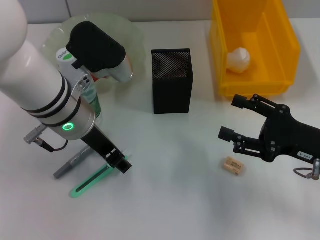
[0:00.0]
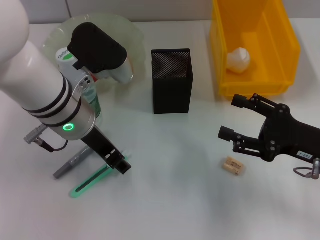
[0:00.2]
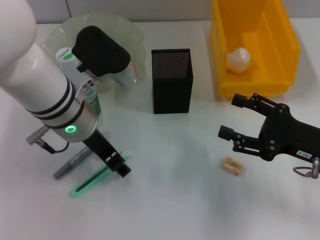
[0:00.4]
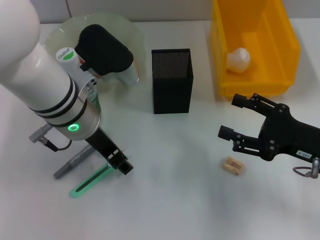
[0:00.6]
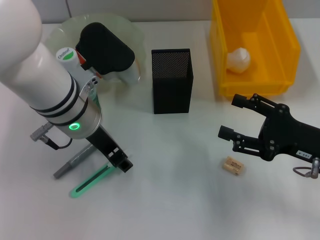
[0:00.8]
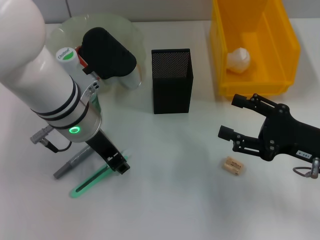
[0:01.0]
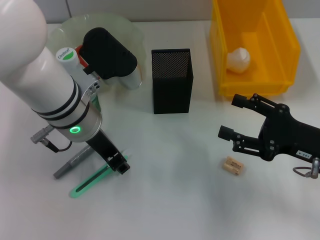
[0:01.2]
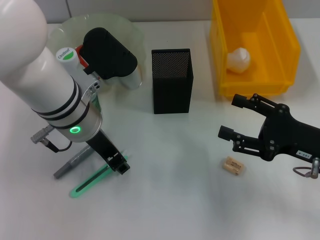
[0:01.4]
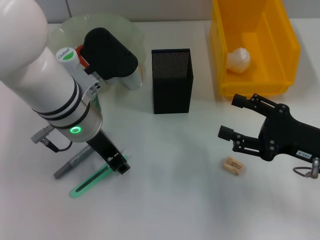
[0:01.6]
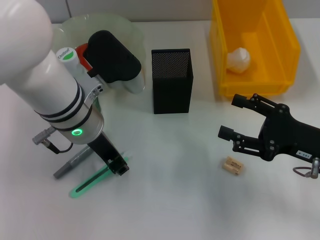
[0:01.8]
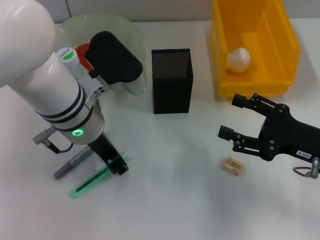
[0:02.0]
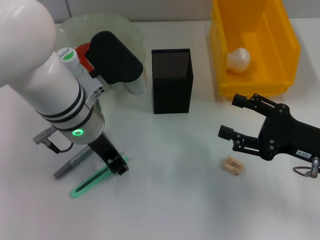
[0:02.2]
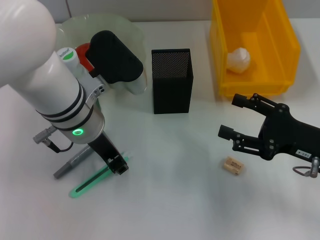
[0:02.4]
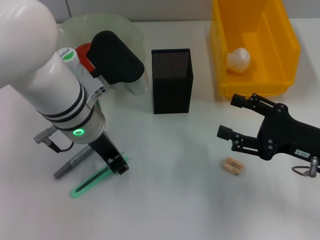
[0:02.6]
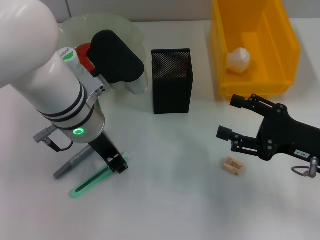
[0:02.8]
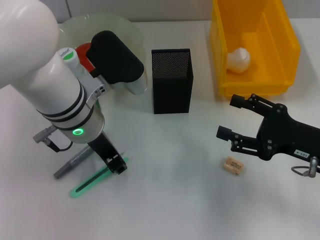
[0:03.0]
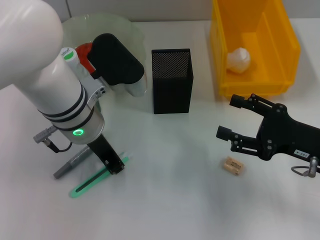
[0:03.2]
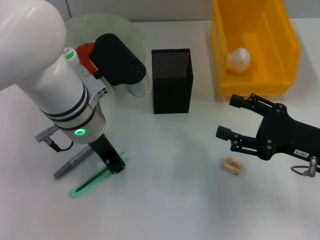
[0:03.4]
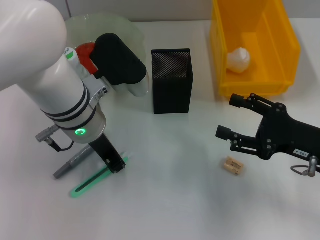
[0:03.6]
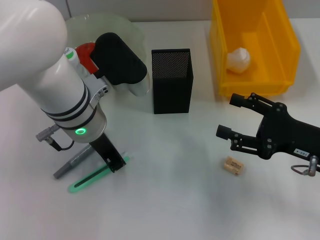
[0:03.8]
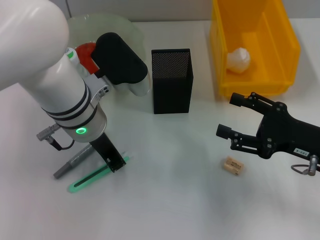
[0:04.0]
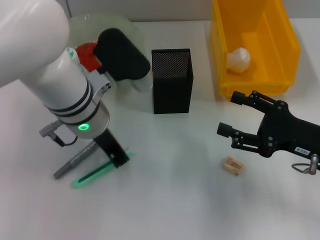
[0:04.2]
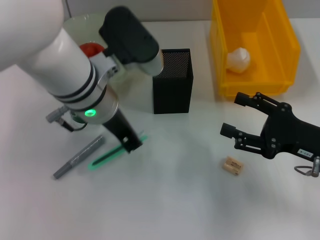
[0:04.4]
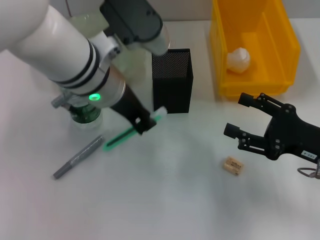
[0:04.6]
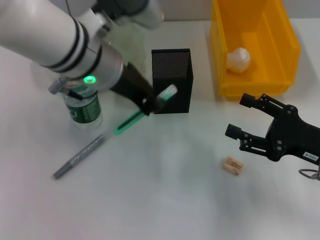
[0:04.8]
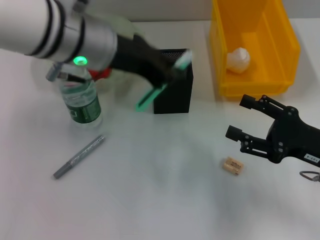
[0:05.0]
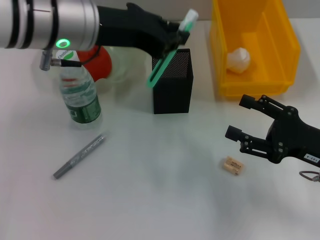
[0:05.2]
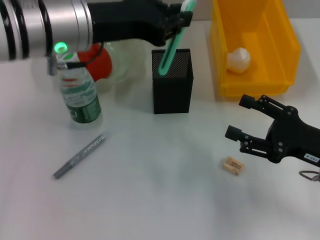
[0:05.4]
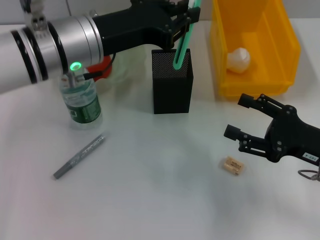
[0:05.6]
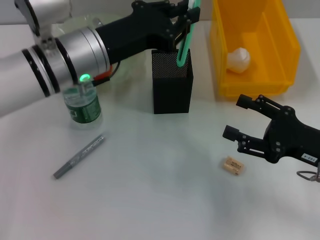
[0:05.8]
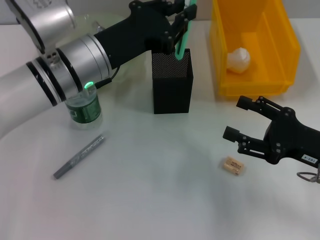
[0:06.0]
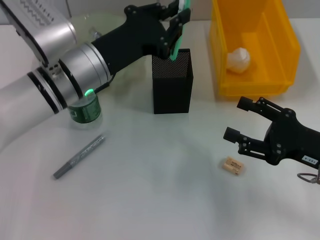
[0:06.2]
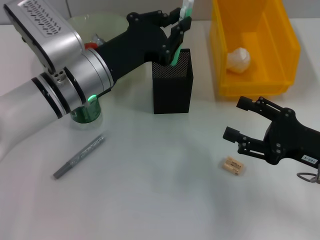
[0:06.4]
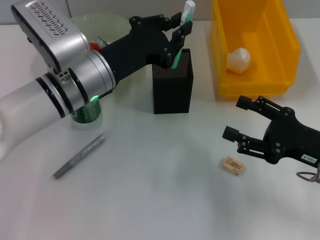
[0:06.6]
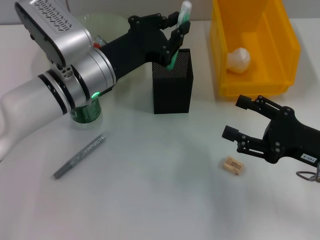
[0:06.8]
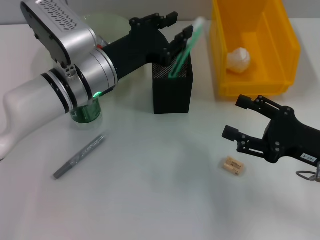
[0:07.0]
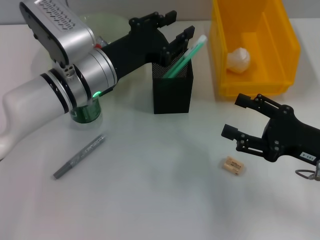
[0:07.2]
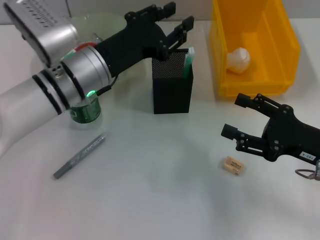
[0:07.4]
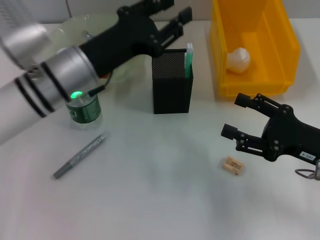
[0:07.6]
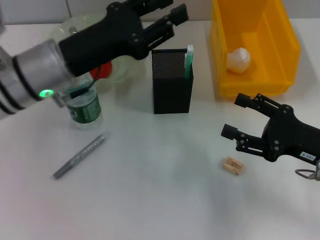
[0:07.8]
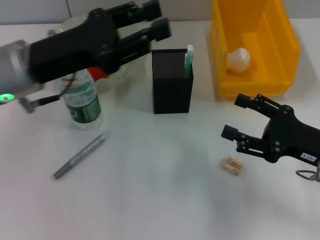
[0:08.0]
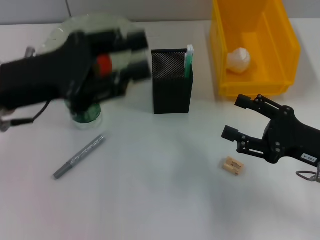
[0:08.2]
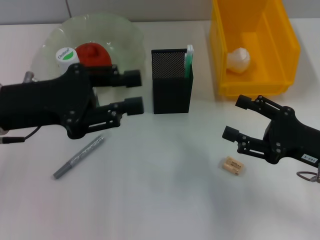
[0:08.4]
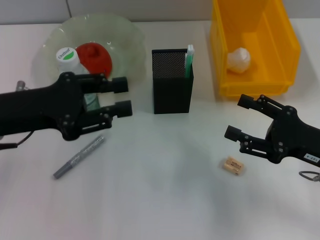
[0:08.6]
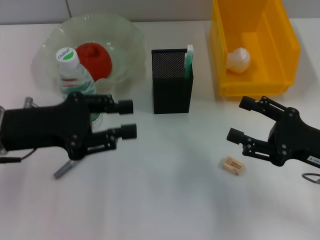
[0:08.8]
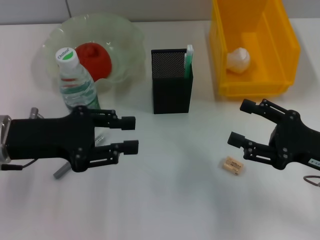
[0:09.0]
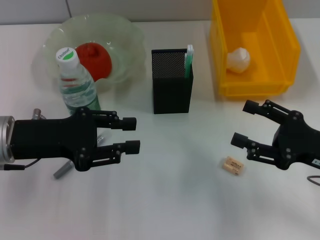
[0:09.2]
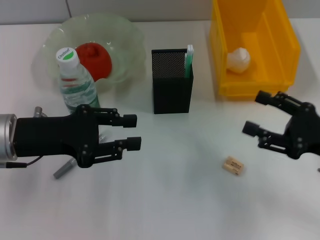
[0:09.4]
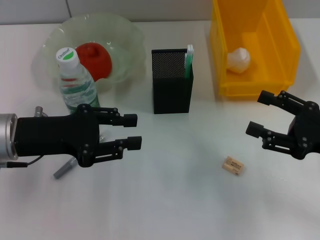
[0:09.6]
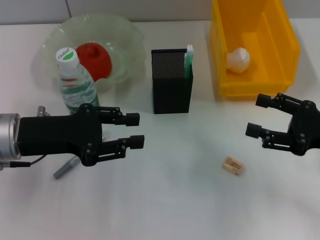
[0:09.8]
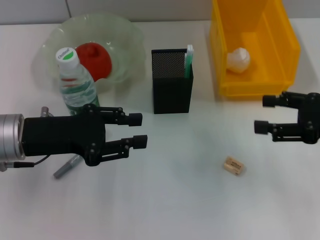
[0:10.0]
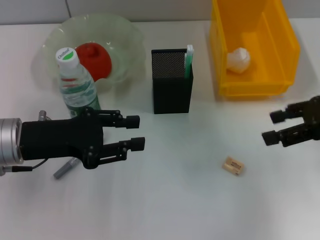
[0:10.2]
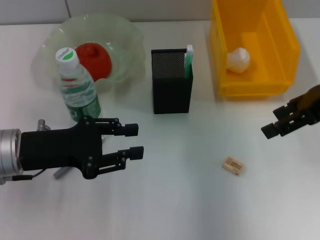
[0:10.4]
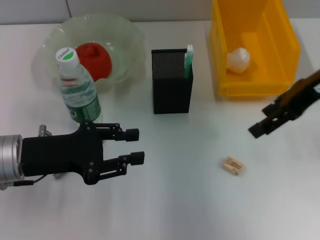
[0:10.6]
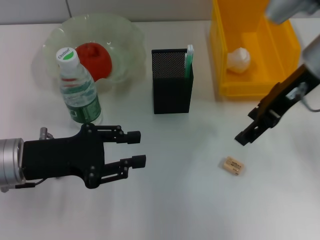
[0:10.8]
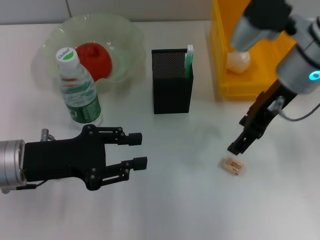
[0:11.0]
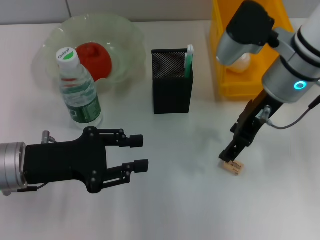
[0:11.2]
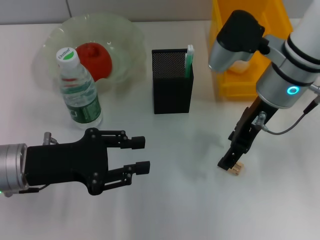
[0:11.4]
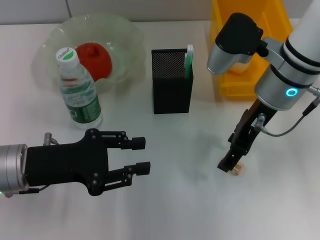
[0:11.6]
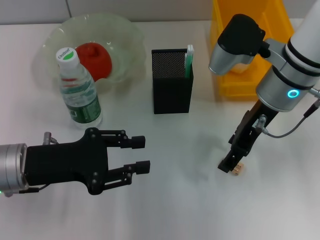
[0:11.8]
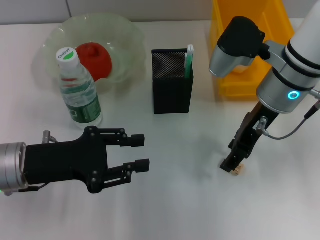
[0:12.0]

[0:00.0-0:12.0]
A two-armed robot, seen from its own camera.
Step, 0:00.0 to 0:04.0: Grab the blue utility knife with the left hand.
Step, 0:04.2 to 0:07.2: Place the blue utility knife into the pen holder with the left hand.
0:00.0 to 0:01.6: Neither gripper changes place.
0:01.6 to 0:03.0: Both grippers stay put.
0:04.4 to 0:06.0: The left gripper goes upward and returns, roughly 5 cm each way.
0:06.0 to 0:07.6: The left gripper opens its fingers.
0:07.6 to 0:09.0: The left gripper travels to the left and backward by some 10 cm.
0:09.0 to 0:10.4: The right gripper moves upward and forward, approximately 20 cm.
0:10.4 to 0:12.0: The right gripper goes roughly 15 cm to the left and downward.

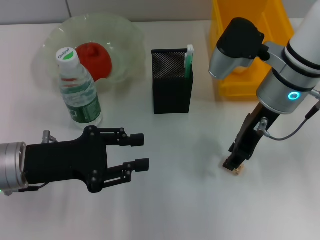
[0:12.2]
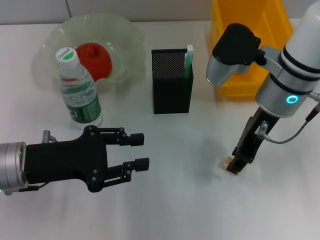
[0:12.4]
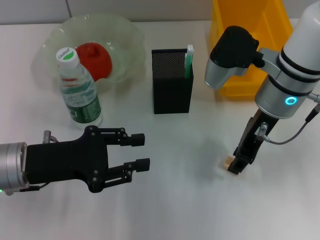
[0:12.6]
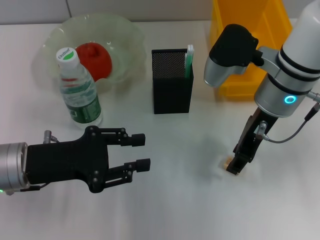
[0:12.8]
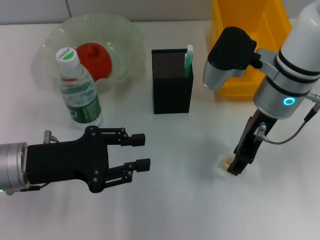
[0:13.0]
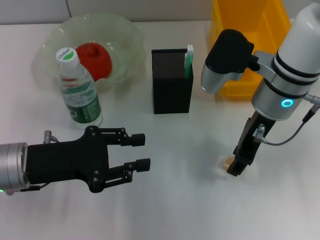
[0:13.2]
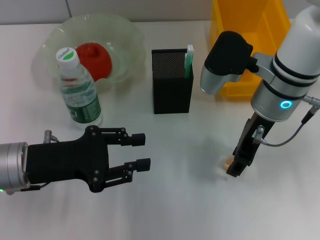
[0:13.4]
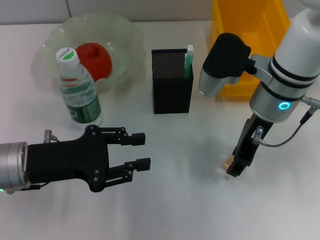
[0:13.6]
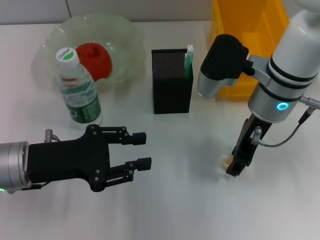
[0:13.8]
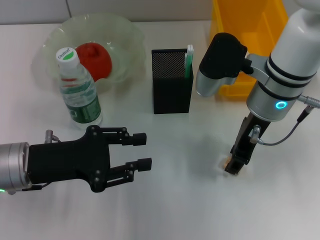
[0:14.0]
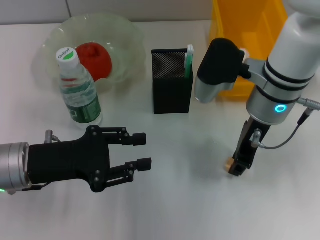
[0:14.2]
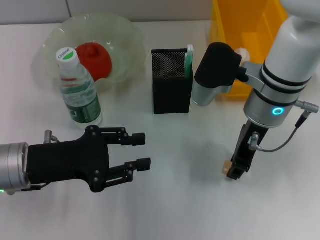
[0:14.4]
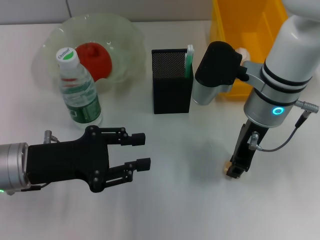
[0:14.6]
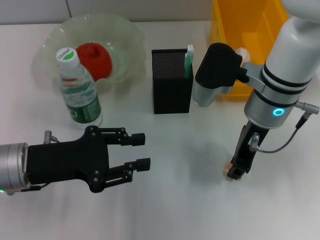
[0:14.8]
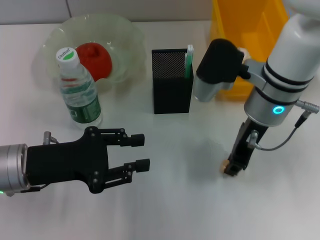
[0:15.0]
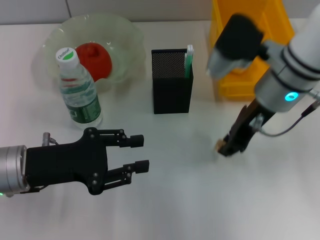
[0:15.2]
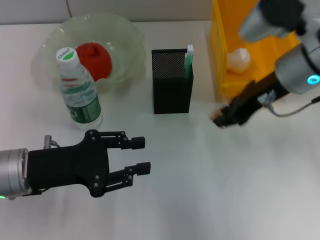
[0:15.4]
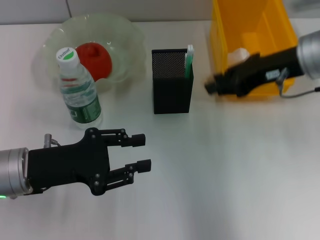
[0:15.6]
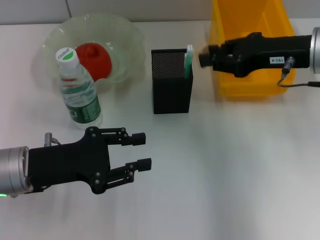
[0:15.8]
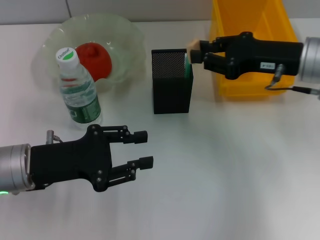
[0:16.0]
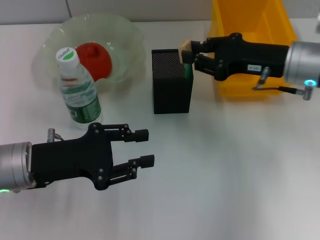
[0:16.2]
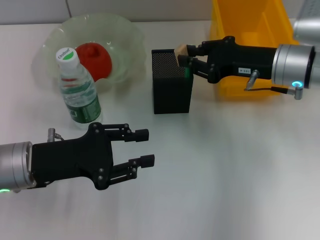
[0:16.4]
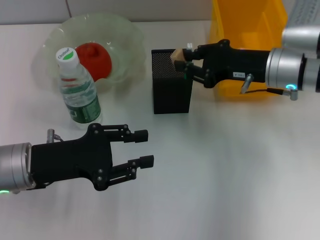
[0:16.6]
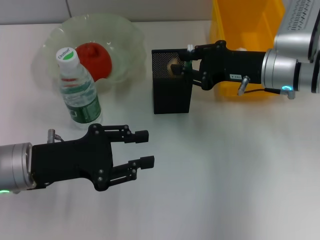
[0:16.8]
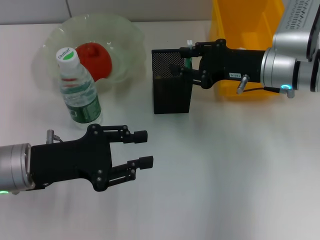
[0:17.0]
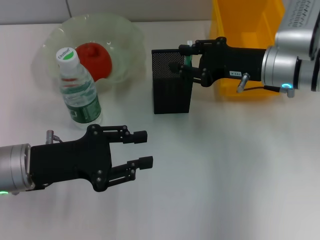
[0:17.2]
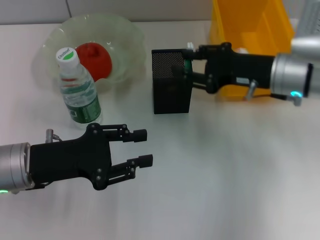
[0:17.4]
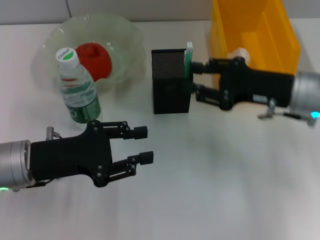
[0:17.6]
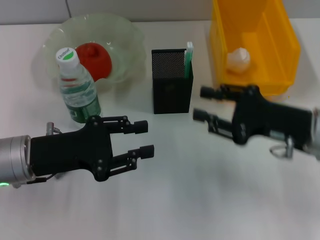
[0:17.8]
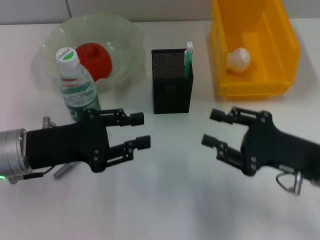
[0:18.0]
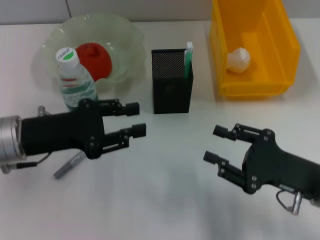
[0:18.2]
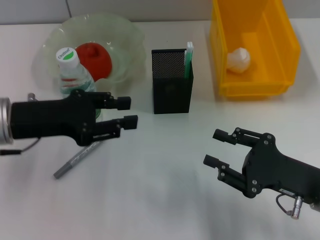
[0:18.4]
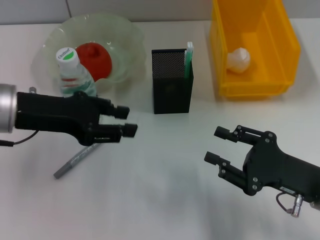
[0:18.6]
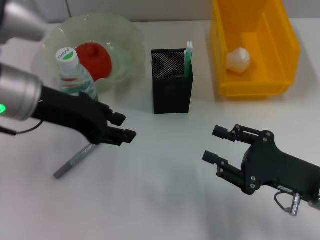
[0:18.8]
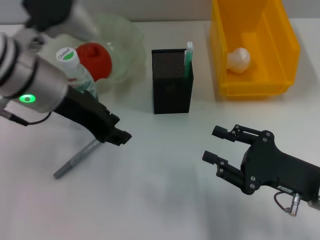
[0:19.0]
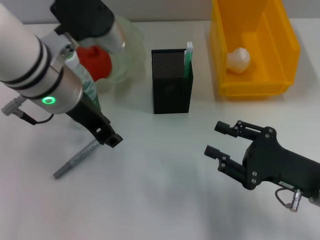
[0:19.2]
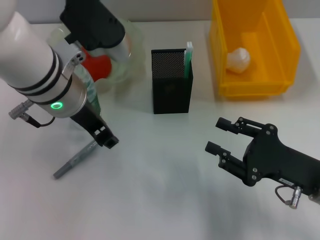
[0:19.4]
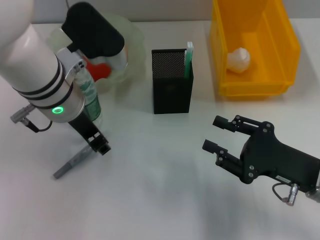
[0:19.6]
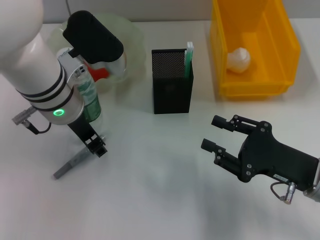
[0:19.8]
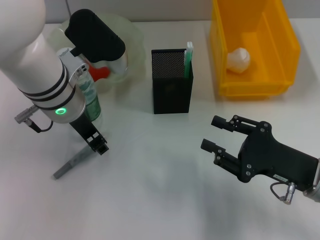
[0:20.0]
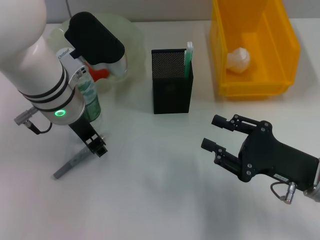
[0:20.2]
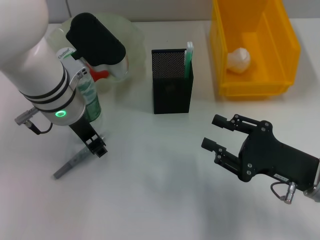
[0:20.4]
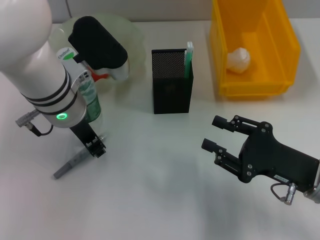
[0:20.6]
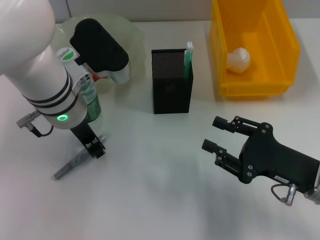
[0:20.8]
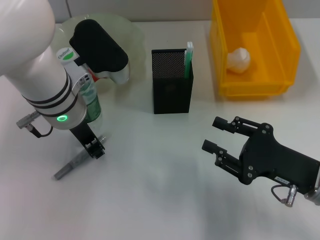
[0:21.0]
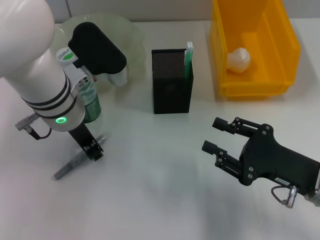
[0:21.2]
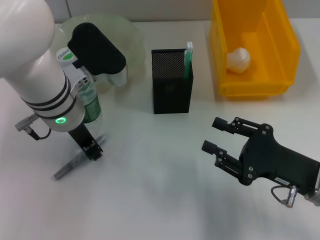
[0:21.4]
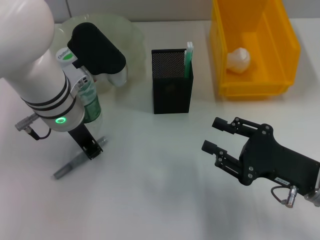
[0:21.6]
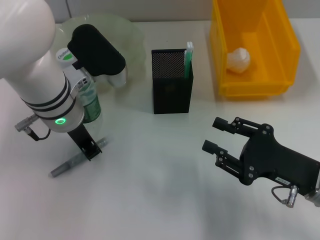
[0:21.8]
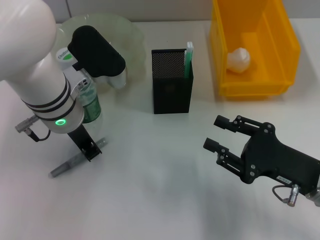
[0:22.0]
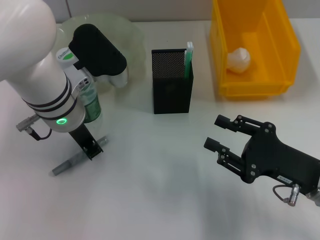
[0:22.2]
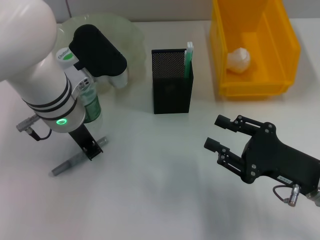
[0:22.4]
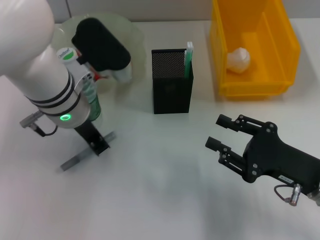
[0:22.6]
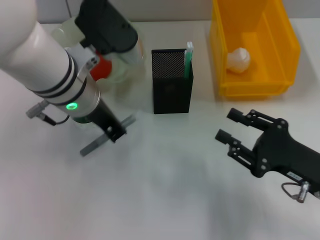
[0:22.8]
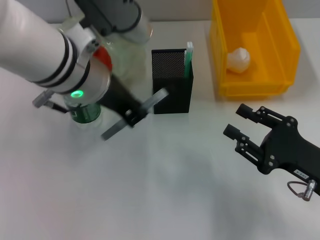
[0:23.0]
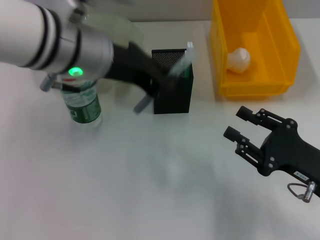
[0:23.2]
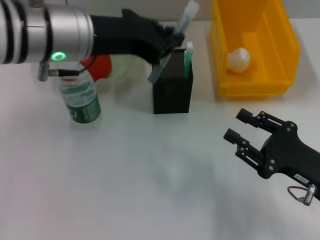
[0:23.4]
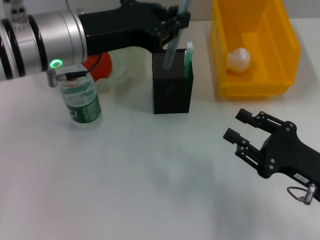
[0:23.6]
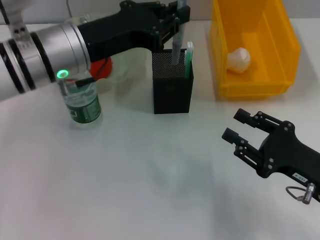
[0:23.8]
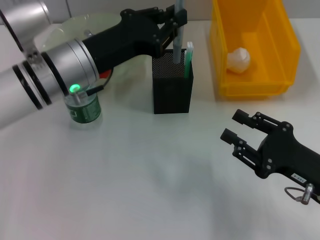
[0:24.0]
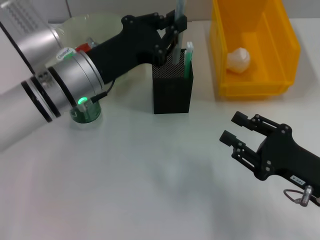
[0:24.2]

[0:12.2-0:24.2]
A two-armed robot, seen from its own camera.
Step, 0:12.2 to 0:14.8: Grab the eraser with the right hand.
Step, 0:15.0 to 0:17.0: Put the eraser into the pen holder with the right hand.
Step, 0:17.2 to 0:22.2: Grab the gray glue with the left hand.
0:12.2 to 0:13.8: There are only small adjustments of the grippers.
0:13.8 to 0:15.2: The right gripper closes its fingers.
0:15.2 to 0:16.6: The right gripper ends up some 5 cm from where it was.
0:16.6 to 0:18.2: The right gripper goes approximately 20 cm backward and downward, and opens.
0:18.2 to 0:19.8: The left gripper shifts roughly 15 cm to the right, forward and upward.
0:19.8 to 0:21.2: The grippers stay close to where they were, moving slightly.
0:21.2 to 0:22.6: Both grippers stay about where they are.
0:22.6 to 0:24.2: The left gripper moves approximately 10 cm upward and comes back.
